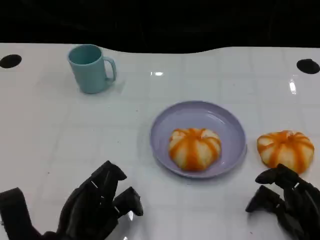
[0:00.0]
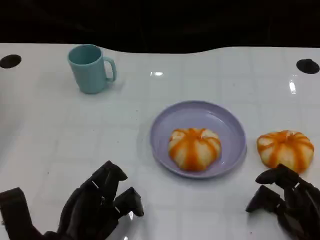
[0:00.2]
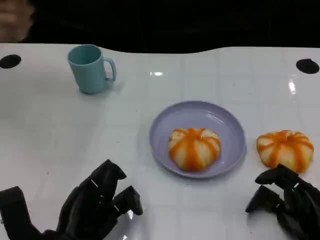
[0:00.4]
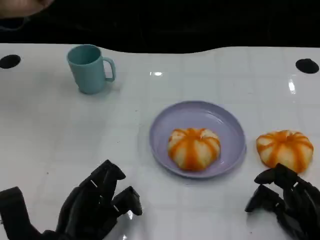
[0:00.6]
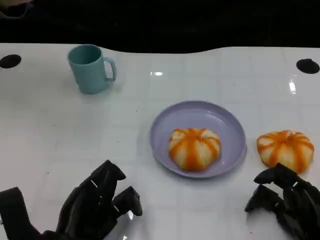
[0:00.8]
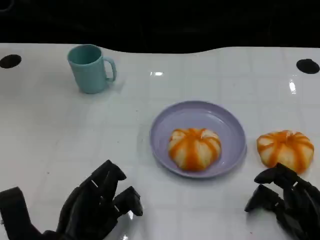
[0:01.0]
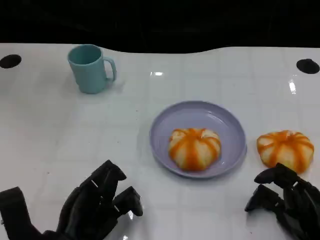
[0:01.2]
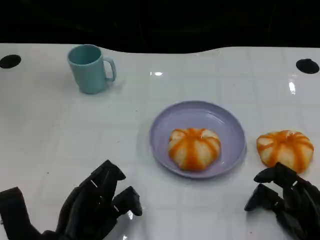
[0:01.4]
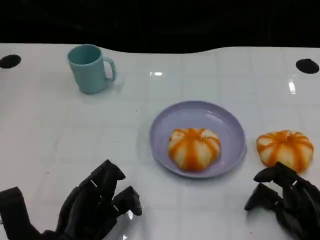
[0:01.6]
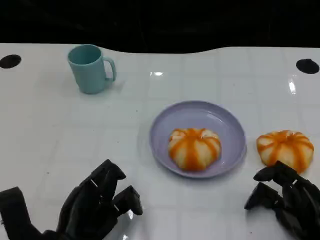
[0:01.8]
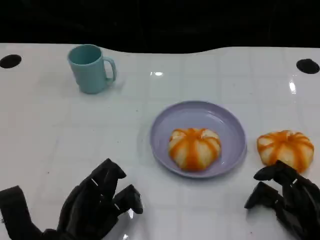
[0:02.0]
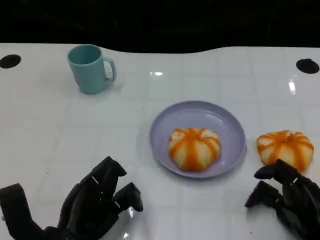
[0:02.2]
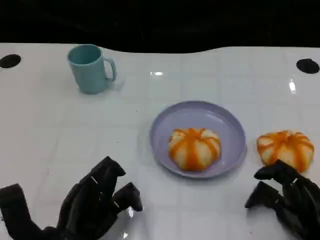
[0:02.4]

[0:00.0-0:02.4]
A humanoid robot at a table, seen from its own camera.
Task of the whole recording: Grasp the bread from the table and place it into the plate.
0:00.0 to 0:02.4: The two hands keep their place.

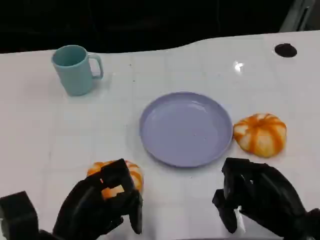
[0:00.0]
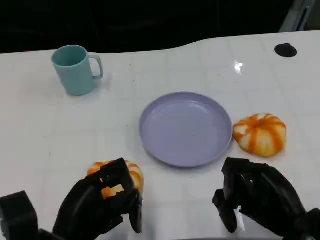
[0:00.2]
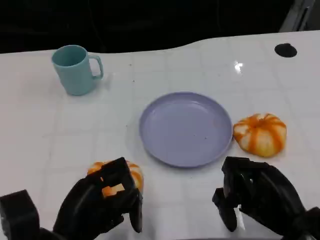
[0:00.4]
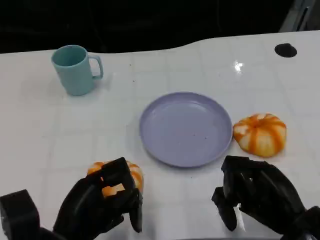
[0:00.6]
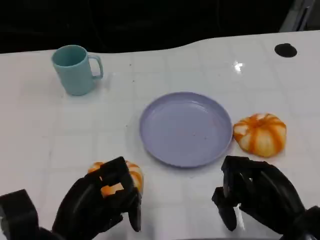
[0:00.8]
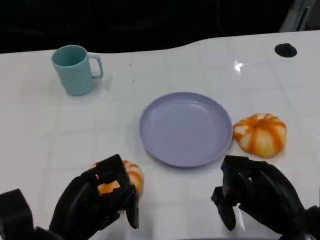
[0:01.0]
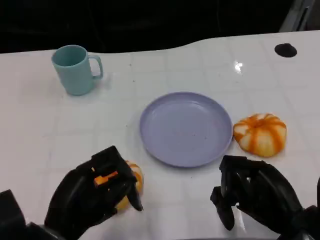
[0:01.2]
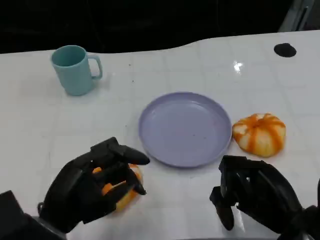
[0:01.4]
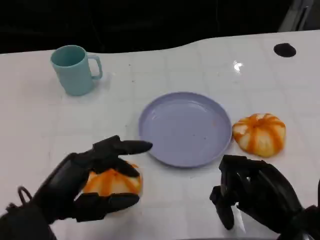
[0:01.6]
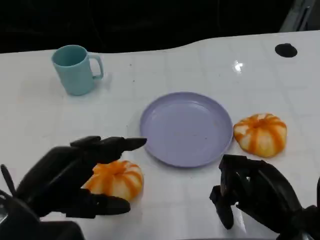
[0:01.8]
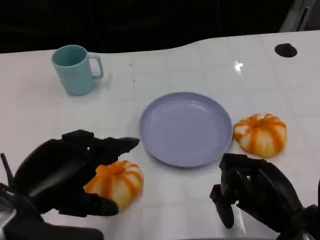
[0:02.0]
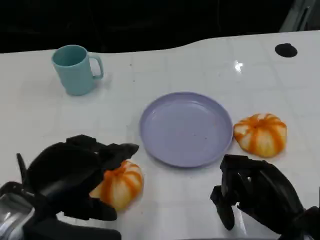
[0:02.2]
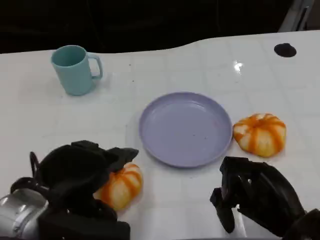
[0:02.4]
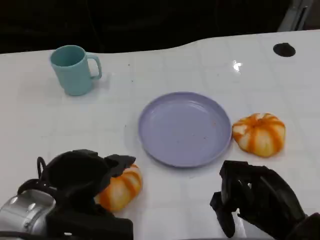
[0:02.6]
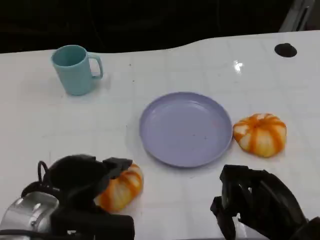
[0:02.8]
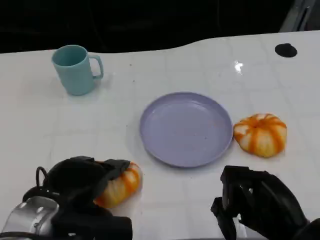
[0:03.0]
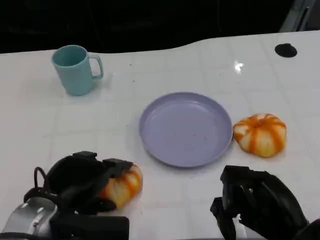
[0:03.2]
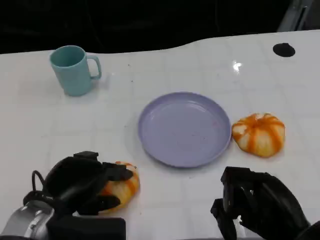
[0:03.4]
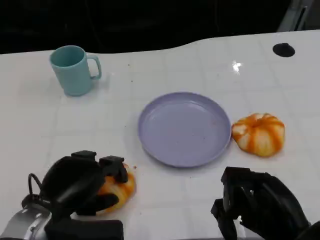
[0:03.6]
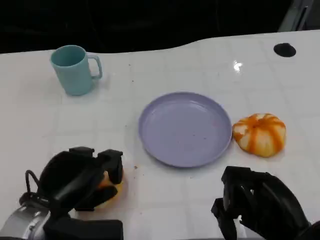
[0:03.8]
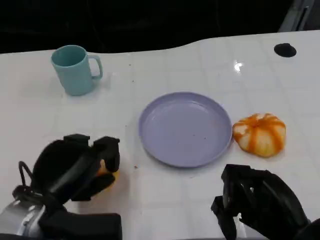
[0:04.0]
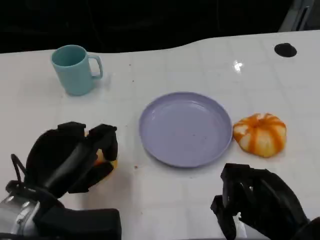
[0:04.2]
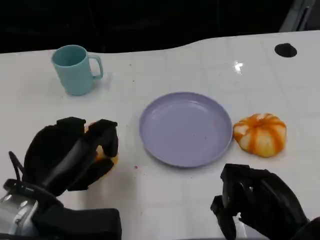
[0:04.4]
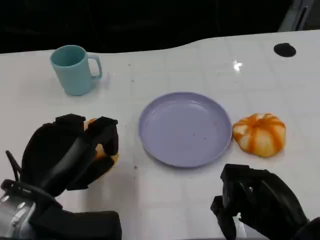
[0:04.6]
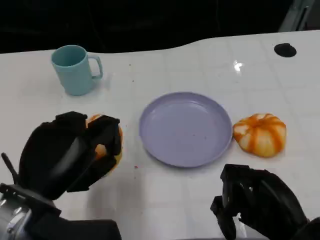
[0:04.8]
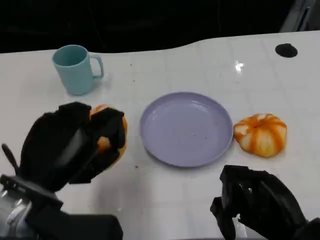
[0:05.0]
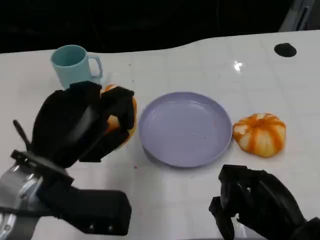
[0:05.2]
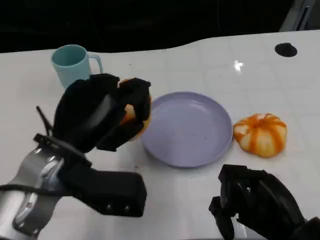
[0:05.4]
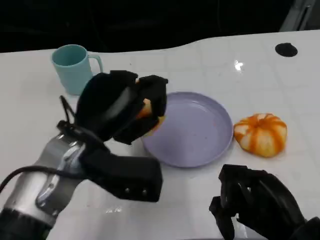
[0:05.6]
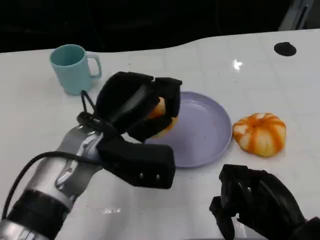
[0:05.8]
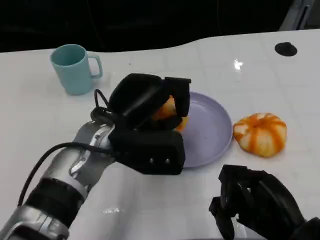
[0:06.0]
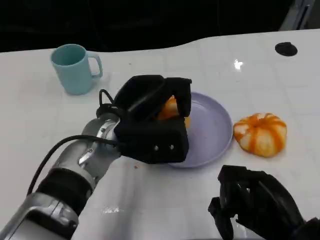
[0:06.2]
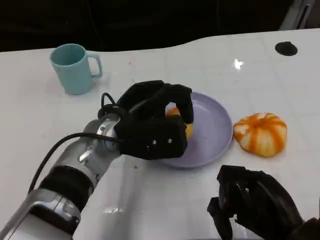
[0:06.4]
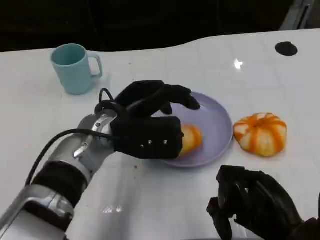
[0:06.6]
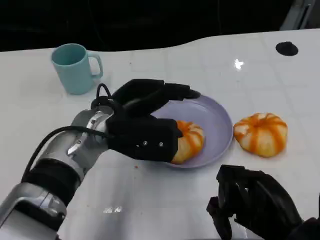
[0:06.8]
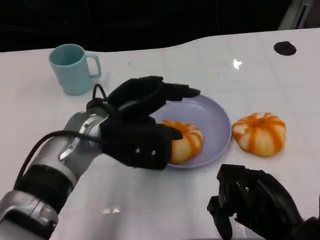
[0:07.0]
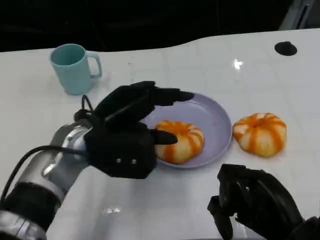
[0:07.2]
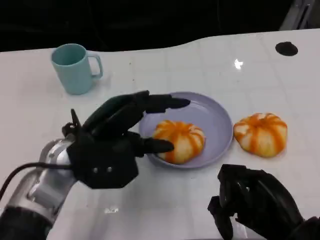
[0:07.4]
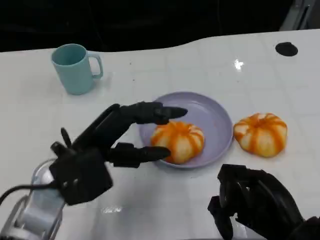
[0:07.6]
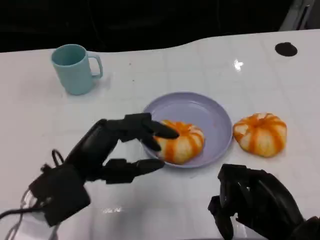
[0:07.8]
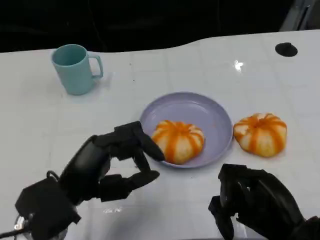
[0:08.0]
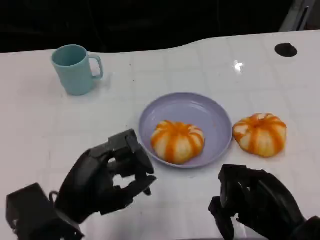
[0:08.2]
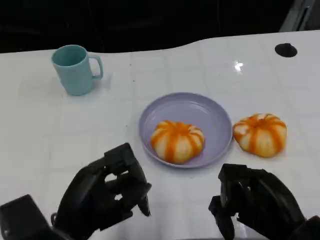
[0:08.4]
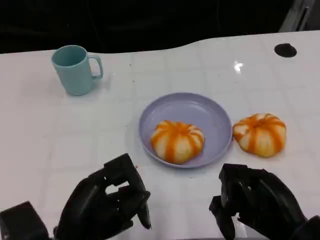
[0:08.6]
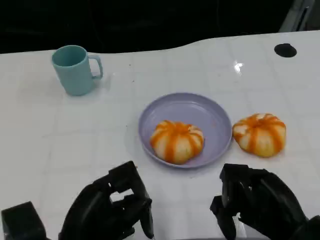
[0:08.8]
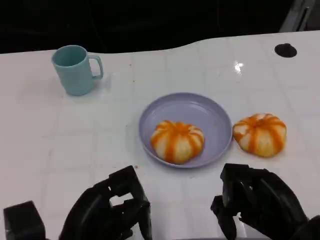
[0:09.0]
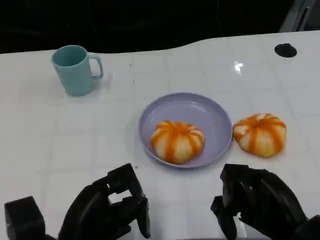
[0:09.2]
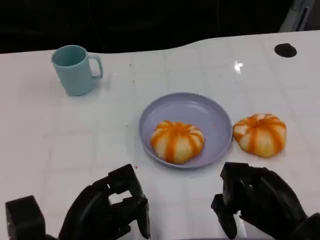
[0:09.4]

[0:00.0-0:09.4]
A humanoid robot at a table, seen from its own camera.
Task of the whole recording: Grasp the bread from the table and place it into the plate.
0:00.0 to 0:01.6: The left hand is displaced upward by roughly 5 cm.
0:03.2 to 0:04.8: The left hand changes place by approximately 5 cm.
0:04.8 to 0:06.2: The left hand shifts approximately 15 cm forward and to the right.
0:06.2 to 0:07.8: The left hand travels backward and to the left by some 10 cm.
0:07.8 to 0:09.4: The left hand heads backward and downward, covering roughly 10 cm.

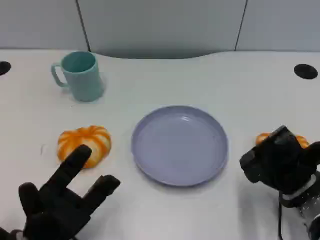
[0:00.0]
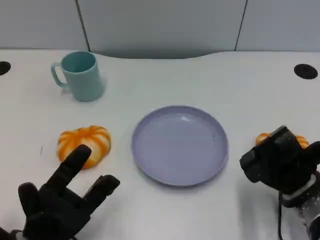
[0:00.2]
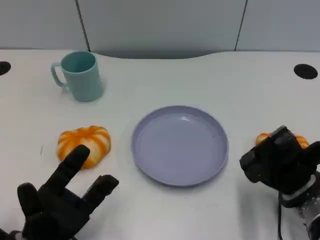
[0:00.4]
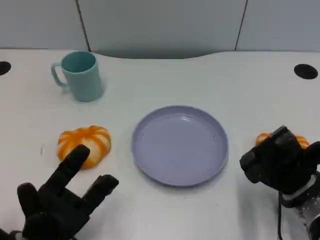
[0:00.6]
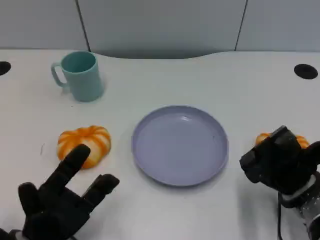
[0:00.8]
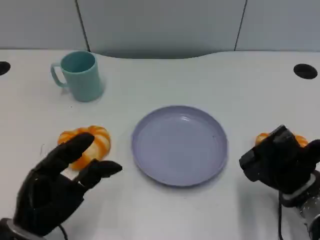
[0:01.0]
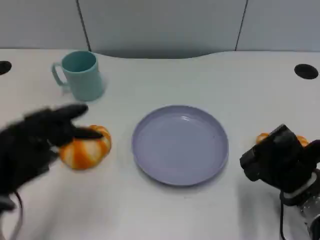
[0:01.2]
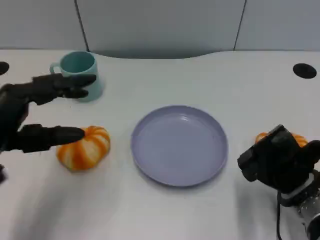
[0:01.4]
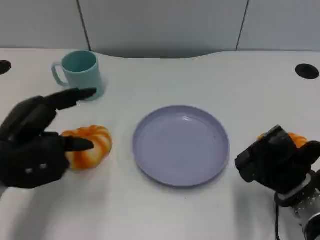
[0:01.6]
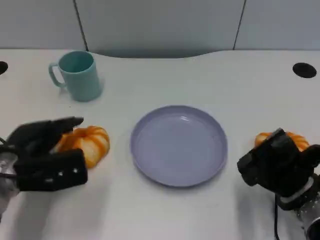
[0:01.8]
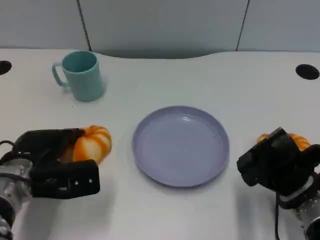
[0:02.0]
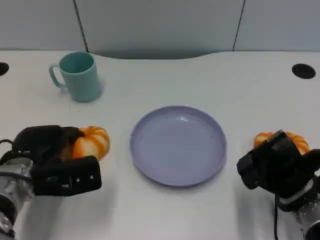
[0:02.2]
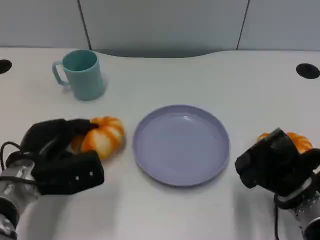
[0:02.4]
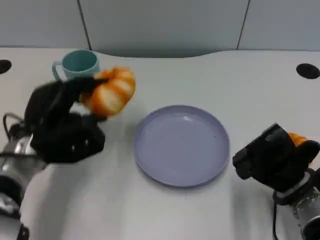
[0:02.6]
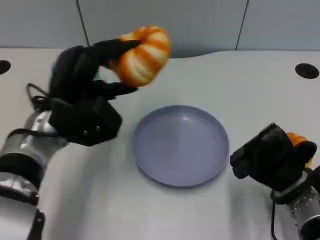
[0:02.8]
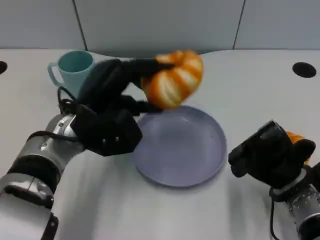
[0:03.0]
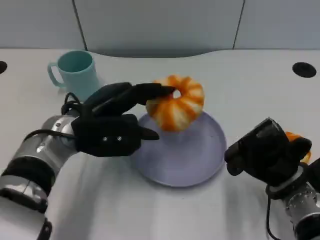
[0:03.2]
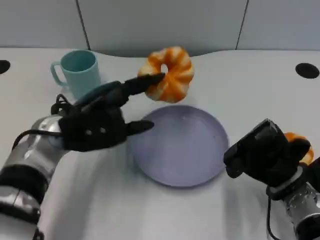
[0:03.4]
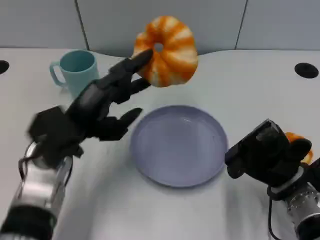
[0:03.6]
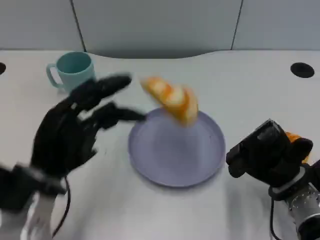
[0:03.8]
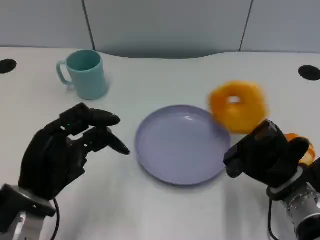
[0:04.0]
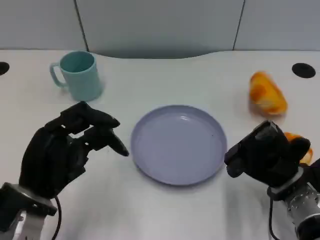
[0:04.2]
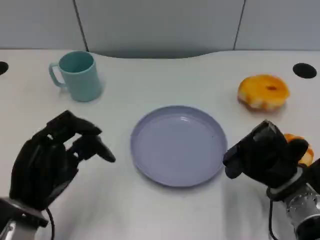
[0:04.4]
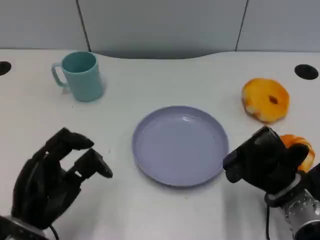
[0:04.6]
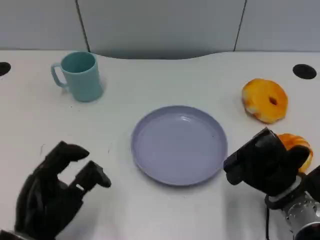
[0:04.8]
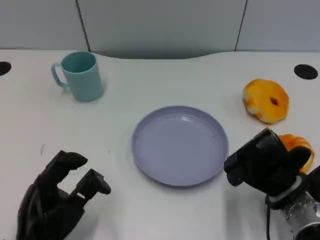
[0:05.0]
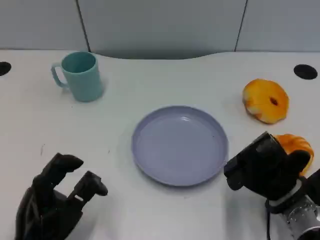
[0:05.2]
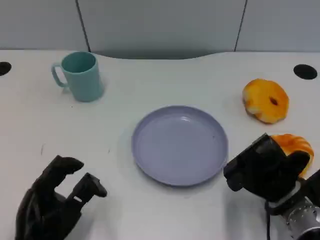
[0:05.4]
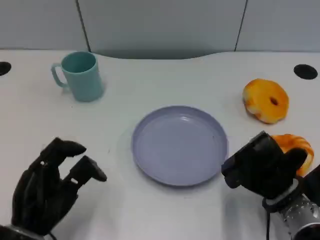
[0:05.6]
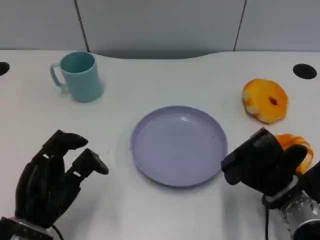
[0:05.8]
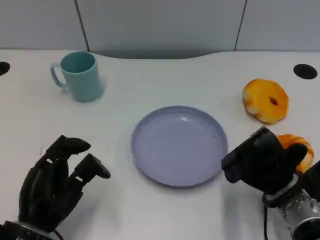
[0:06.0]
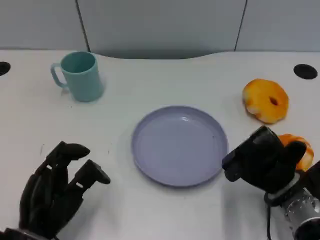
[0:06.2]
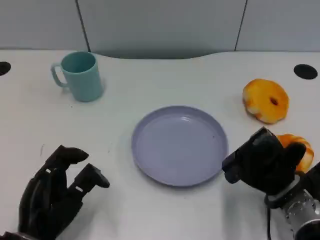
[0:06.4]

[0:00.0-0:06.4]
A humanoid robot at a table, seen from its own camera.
Task of the whole recording: Grasp the bread from the table and place it into the plate.
0:00.0 to 0:01.6: The left hand shifts some 15 cm upward and forward.
0:01.6 to 0:03.2: The left hand moves to the right, approximately 10 cm.
0:03.2 to 0:04.8: The left hand moves backward, downward and to the left, some 20 cm.
0:04.8 to 0:06.4: The hands move only a little.

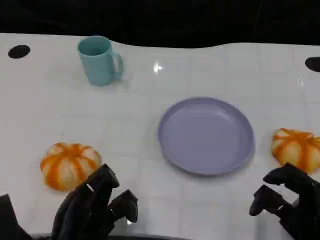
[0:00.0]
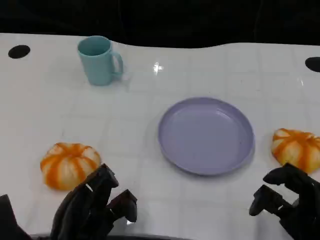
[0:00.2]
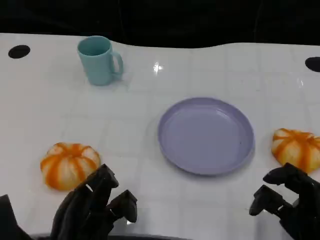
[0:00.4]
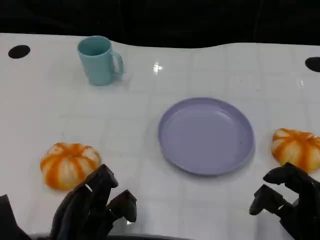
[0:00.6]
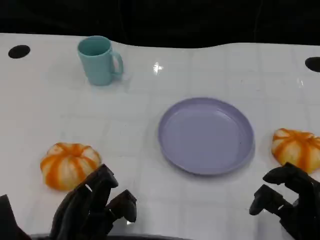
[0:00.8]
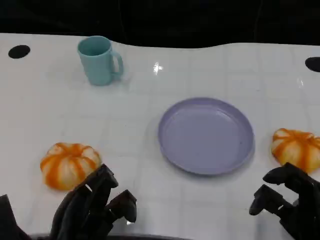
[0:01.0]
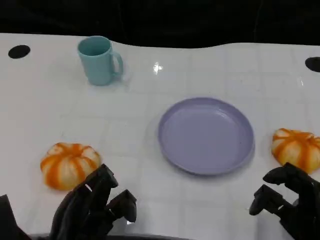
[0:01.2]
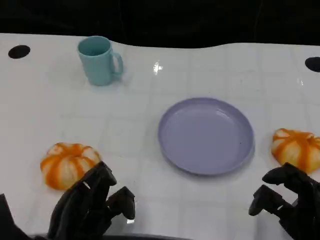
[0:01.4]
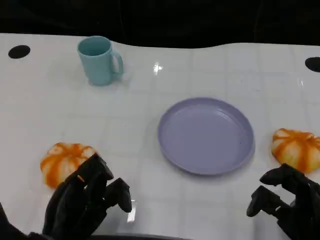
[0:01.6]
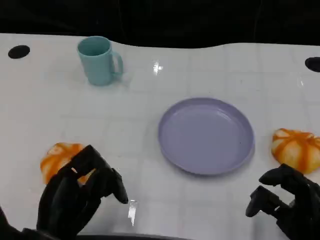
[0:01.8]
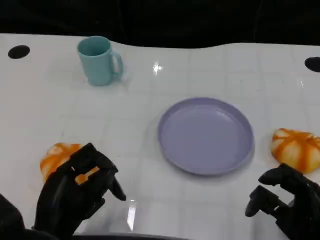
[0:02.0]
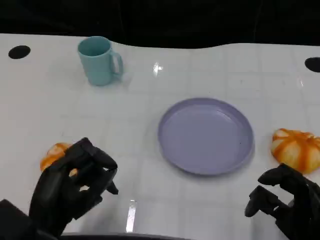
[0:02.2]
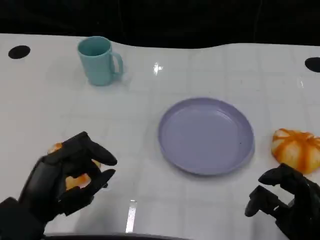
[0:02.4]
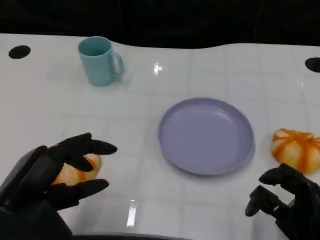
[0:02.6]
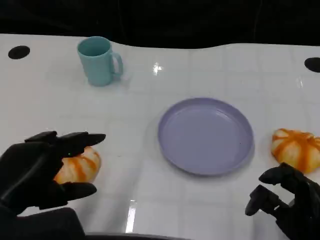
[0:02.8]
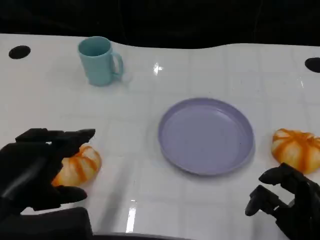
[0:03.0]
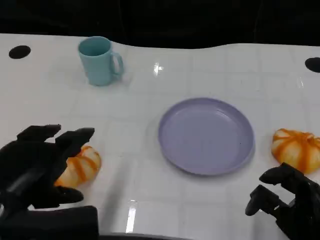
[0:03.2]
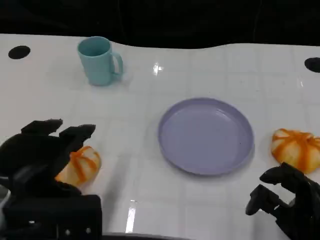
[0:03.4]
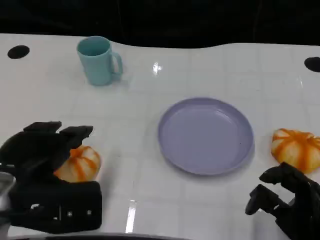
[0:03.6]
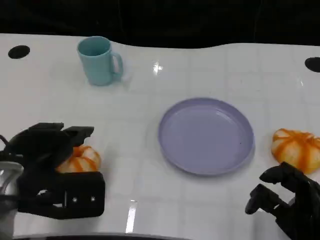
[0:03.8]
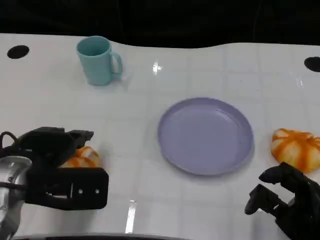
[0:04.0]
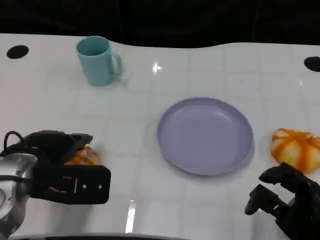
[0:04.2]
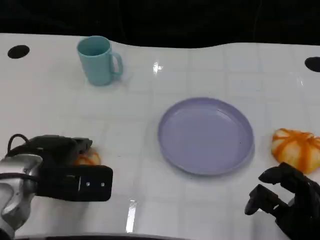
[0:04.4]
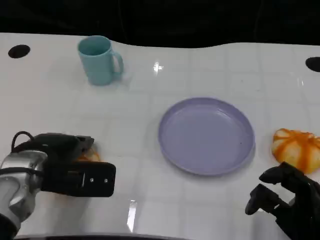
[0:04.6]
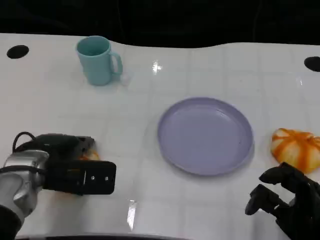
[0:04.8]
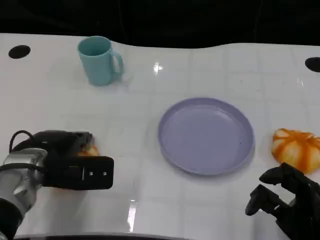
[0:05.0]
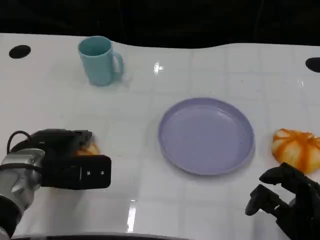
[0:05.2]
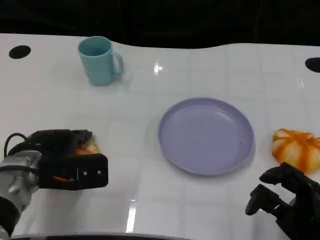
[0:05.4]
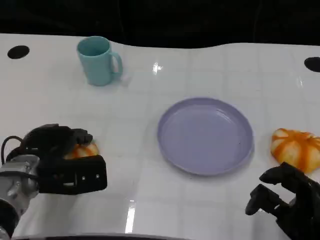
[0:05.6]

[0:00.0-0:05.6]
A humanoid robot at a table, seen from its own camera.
Task of the whole recording: Grasp the bread from the table and place it into the plate.
0:00.0 to 0:01.4: Both hands stay about where they are.
0:01.4 to 0:02.8: The left hand heads upward, covering roughly 10 cm.
0:02.8 to 0:04.2: The left hand heads forward, covering about 10 cm.
0:04.2 to 0:05.6: The left hand moves downward, approximately 5 cm.
